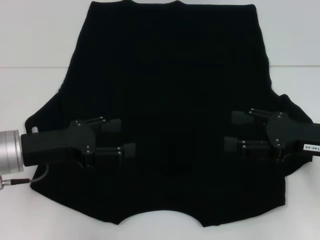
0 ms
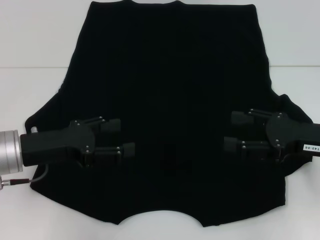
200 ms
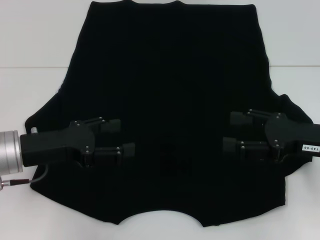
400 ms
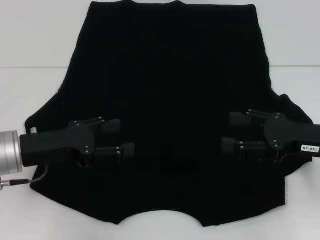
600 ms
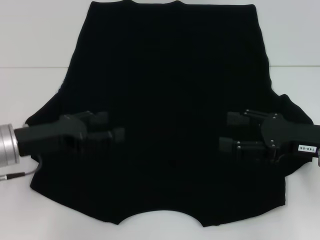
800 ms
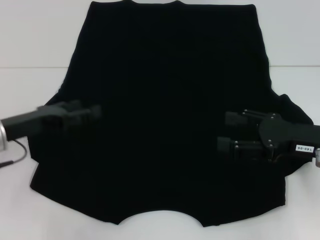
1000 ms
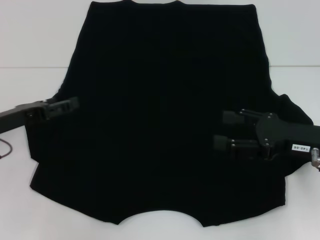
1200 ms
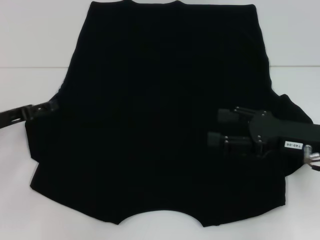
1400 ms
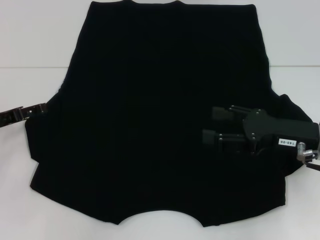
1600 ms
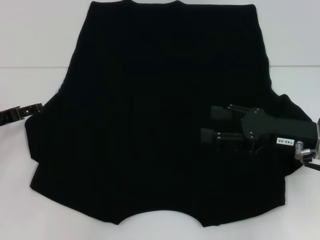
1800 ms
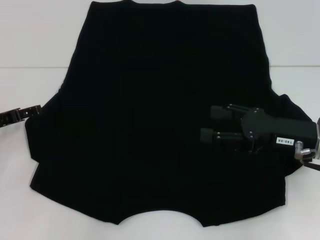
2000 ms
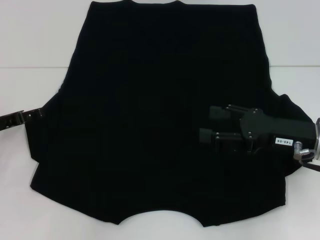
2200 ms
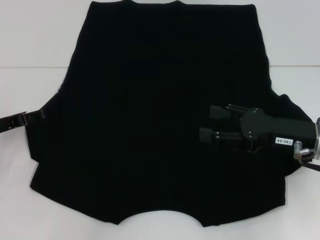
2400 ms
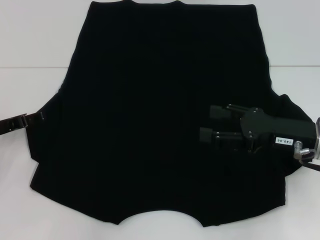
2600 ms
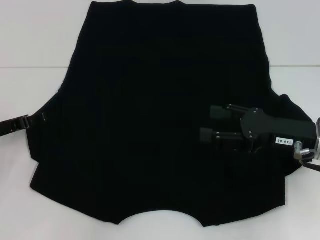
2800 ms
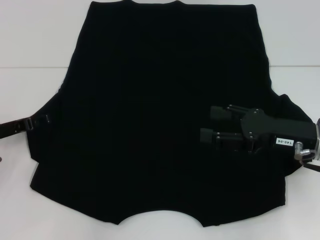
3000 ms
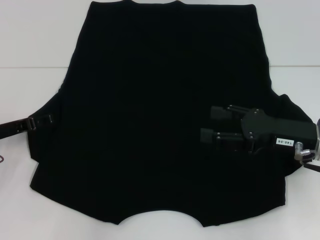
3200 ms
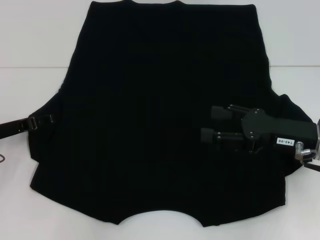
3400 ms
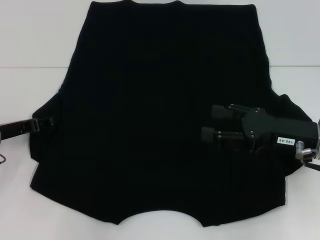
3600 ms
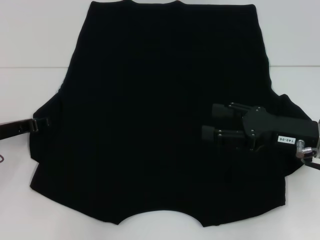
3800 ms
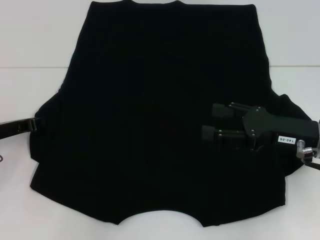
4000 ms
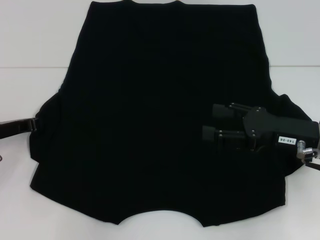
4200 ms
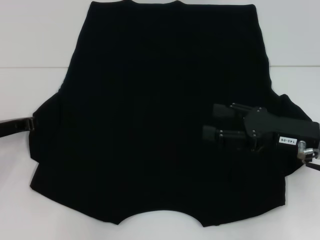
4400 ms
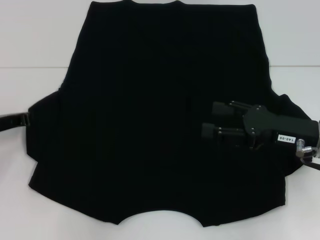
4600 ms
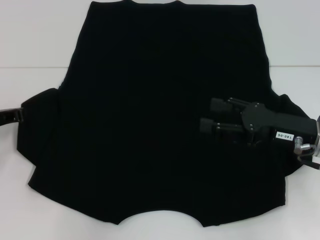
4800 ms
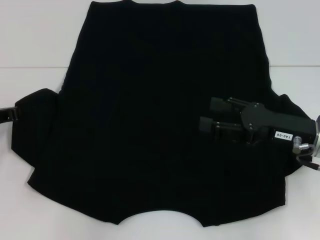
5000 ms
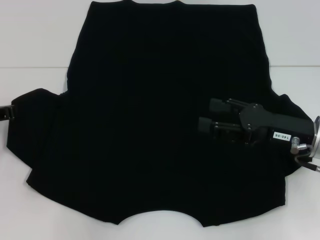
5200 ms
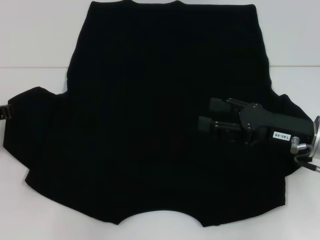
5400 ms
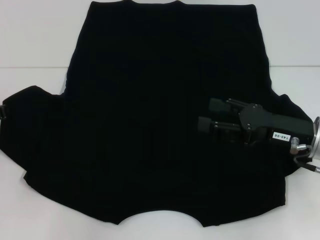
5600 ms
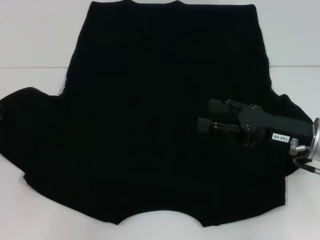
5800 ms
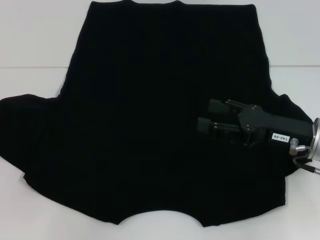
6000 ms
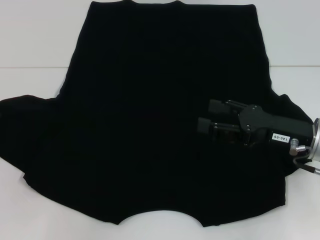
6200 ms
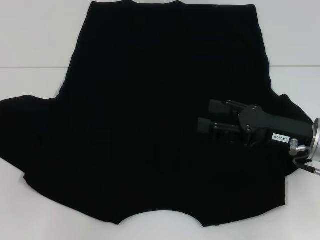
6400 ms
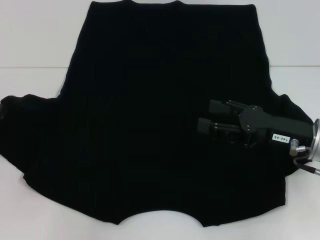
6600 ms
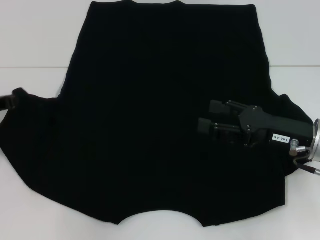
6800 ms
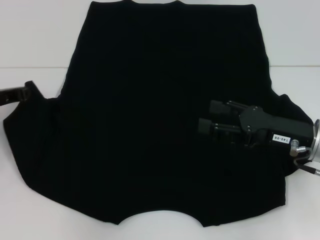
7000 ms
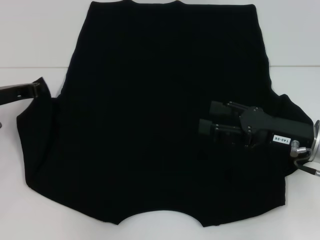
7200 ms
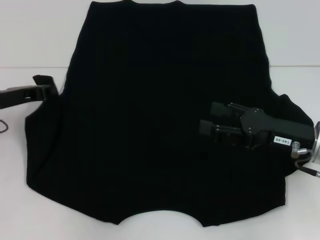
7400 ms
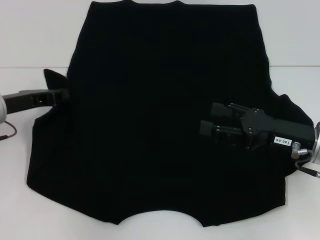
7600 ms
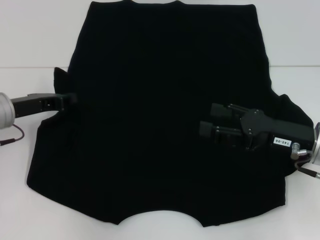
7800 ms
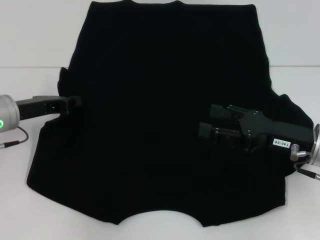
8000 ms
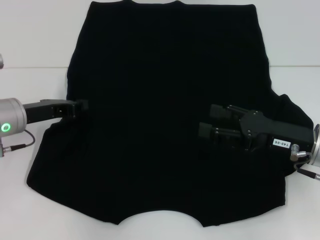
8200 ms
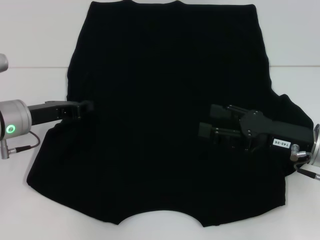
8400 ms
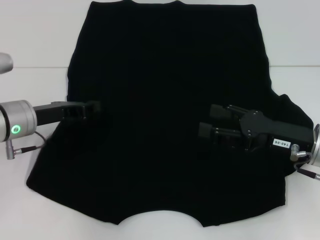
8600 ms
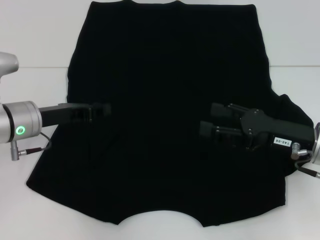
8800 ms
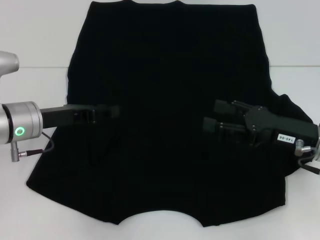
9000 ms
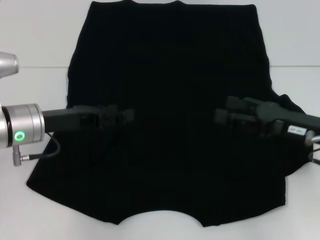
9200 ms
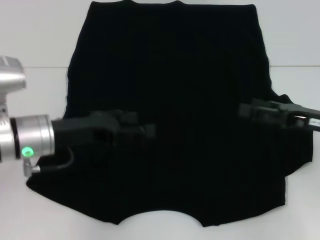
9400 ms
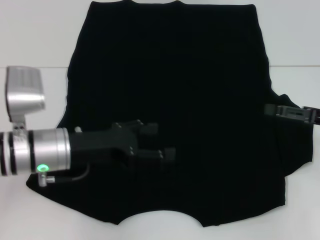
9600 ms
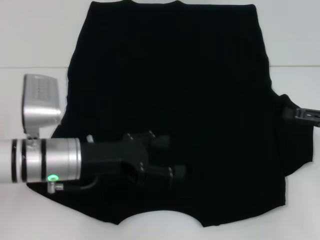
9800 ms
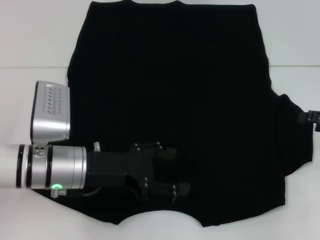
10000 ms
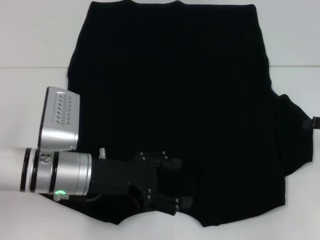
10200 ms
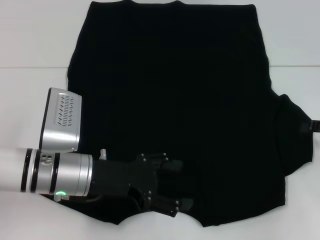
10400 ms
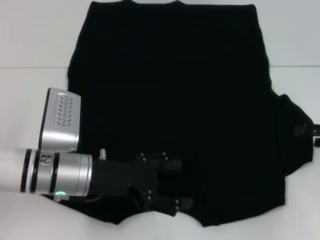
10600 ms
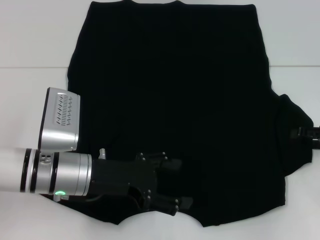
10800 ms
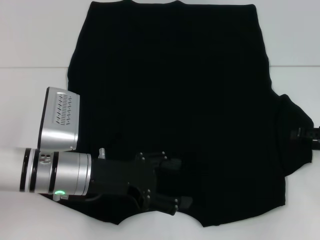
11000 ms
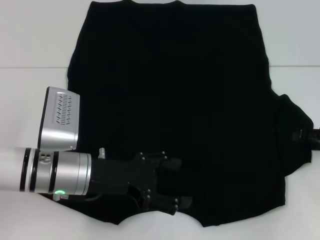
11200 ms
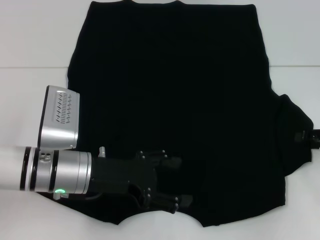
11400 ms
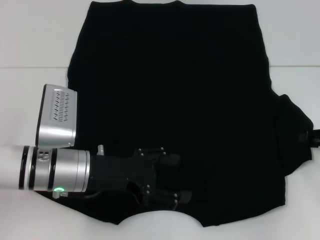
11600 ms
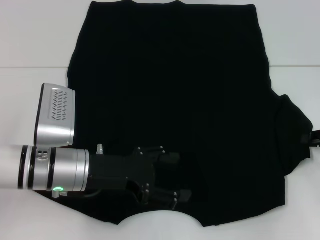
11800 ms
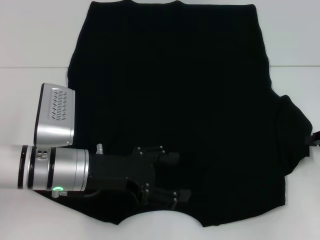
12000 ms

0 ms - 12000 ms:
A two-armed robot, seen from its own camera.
Step, 0 ms - 9400 ms: Fold the bottom left sleeve with your left hand.
0 ms - 1600 ms: The left gripper moves to the left, about 10 cm.
1600 ms - 3000 ms: The grippers move only a little.
4400 ms - 6000 ms: There are only small adjustments of the grippers.
6000 ms - 7600 ms: The left gripper goes approximately 5 cm to the right.
7600 ms - 9000 ms: The left gripper moves to the right, some 5 cm.
9000 ms - 10400 ms: The left gripper shifts some 10 cm to the right and backward, and opens. The right gripper moves to the right, roughly 15 cm.
10400 ms - 12000 ms: The right gripper closes up.

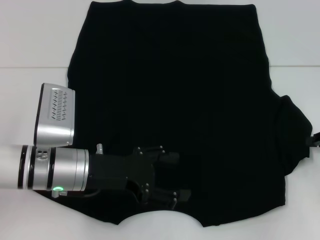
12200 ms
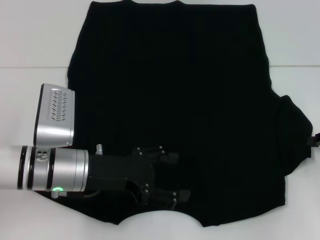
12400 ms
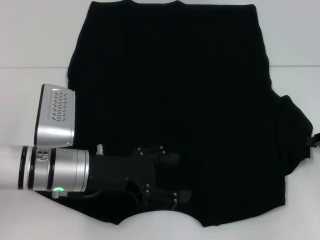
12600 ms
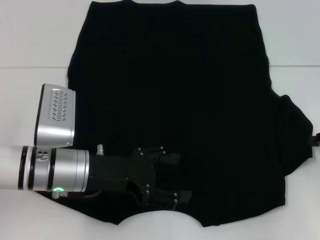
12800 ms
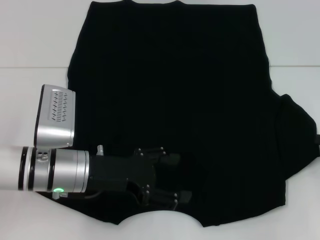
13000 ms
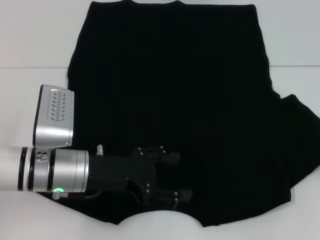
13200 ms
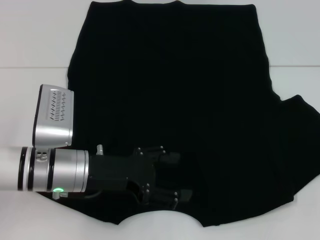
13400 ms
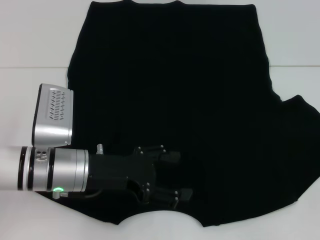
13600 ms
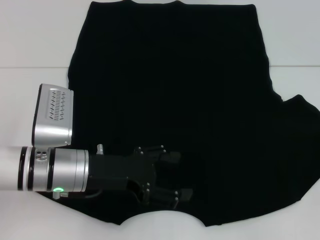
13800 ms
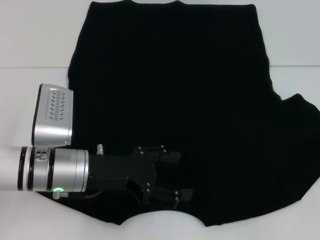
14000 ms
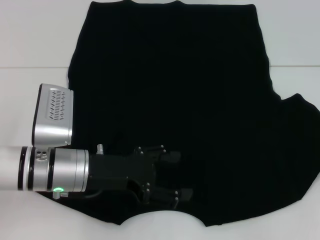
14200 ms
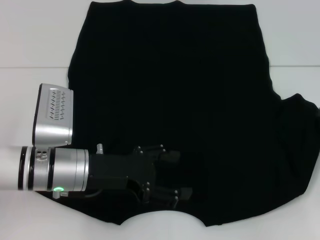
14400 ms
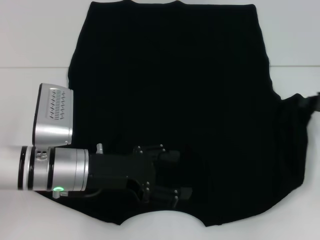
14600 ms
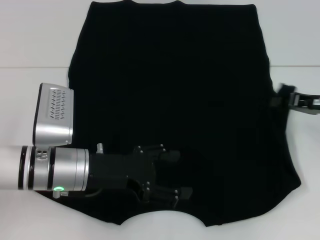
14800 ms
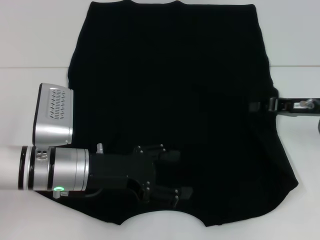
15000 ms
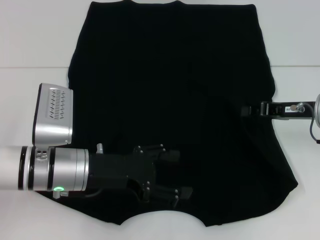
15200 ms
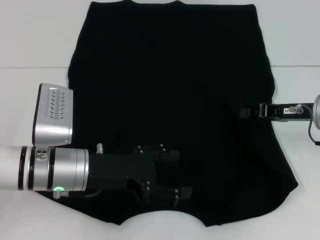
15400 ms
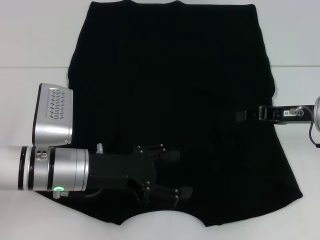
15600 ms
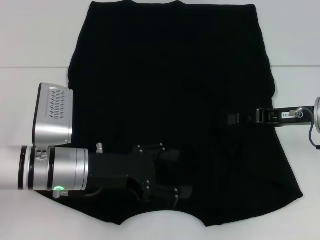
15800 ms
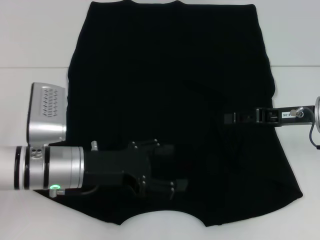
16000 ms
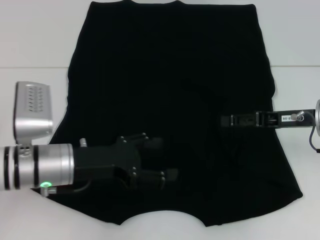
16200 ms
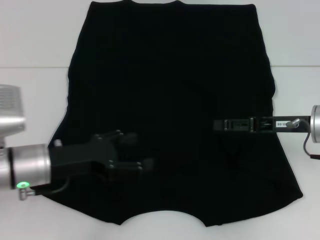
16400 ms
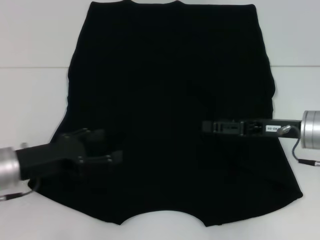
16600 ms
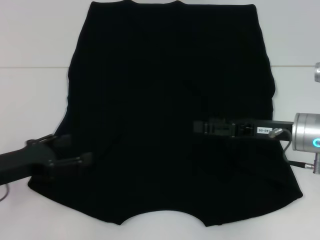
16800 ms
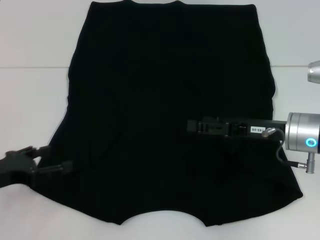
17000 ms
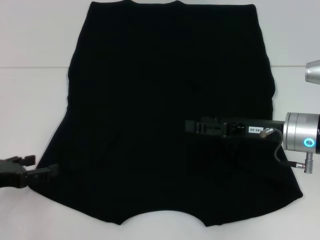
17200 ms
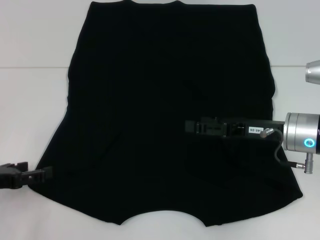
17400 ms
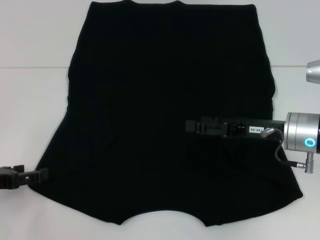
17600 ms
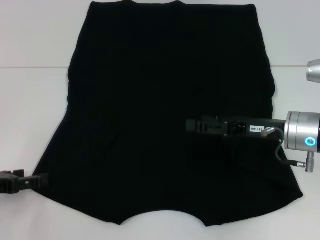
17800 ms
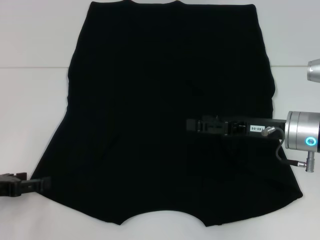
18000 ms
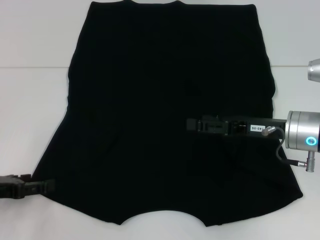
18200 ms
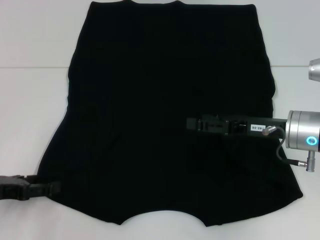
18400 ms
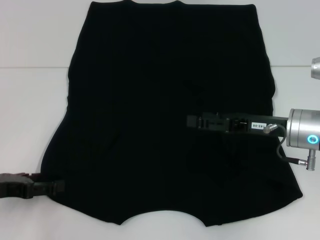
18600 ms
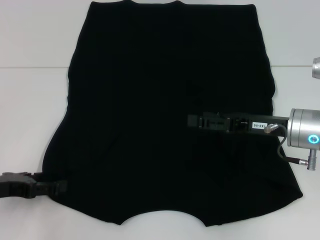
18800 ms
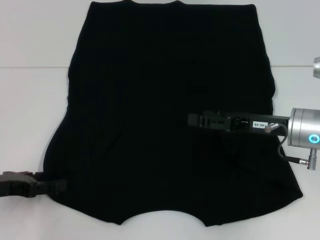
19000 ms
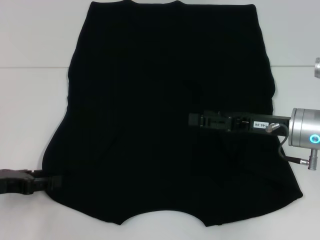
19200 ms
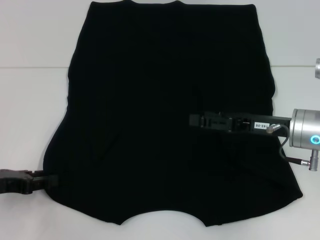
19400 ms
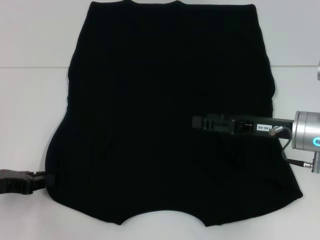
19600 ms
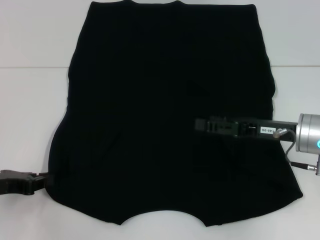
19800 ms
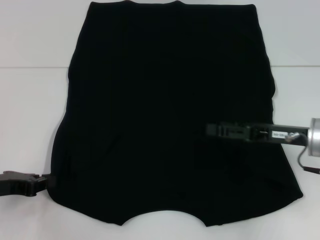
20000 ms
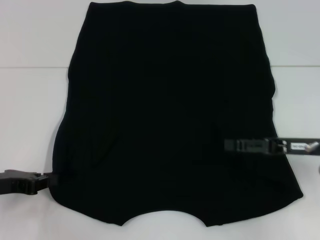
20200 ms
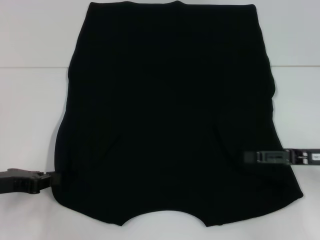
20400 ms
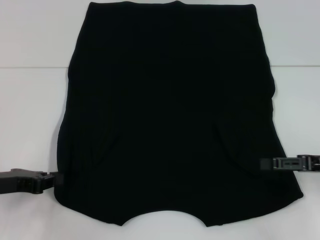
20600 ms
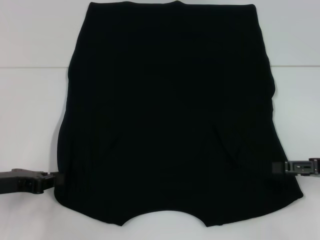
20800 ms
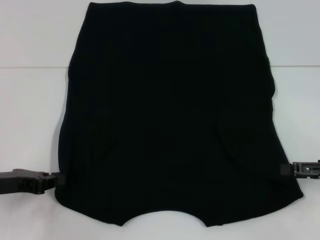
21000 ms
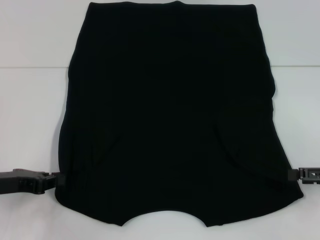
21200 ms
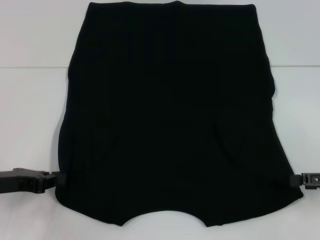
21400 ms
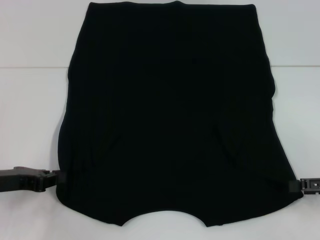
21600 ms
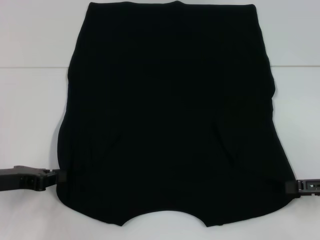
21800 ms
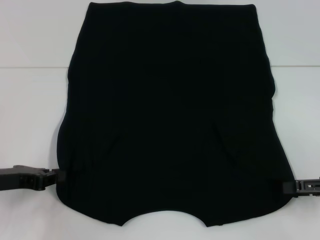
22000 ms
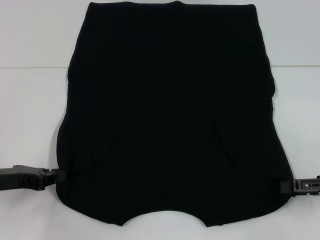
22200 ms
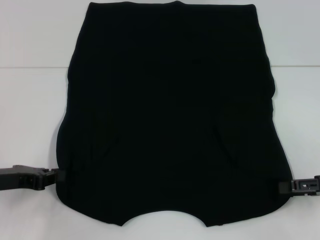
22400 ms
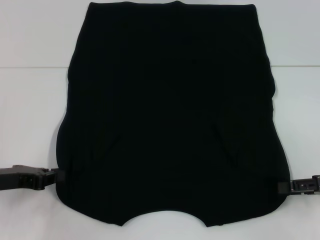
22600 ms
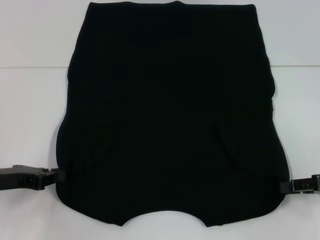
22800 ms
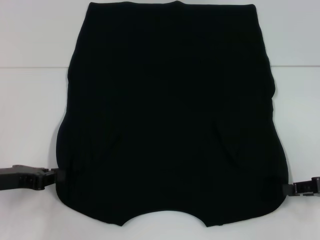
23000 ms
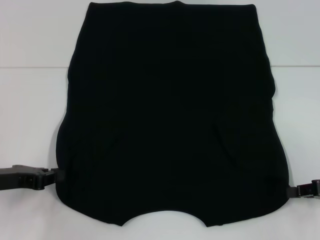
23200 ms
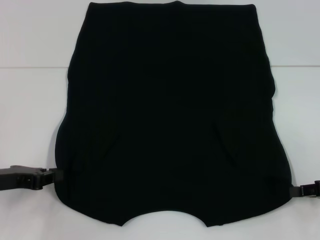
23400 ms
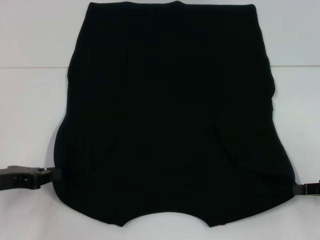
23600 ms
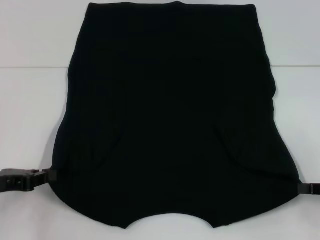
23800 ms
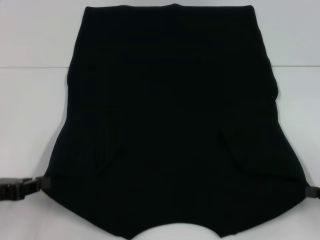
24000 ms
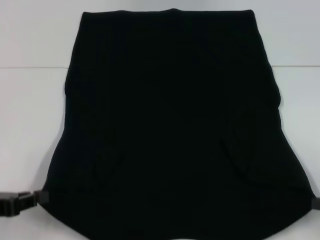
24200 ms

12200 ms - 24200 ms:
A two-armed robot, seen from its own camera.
Step, 12200 ms - 16400 ms: Fold the bottom right sleeve with your right hand.
Step, 16600 ms - 19600 ms: Grab the bottom left corner with your left hand.
Step, 19800 ms - 23600 ms: Grab the bottom right corner with your right hand.
12200 ms - 13800 ms: The right gripper moves some 5 cm.
13800 ms - 15200 ms: The right gripper is displaced to the left and forward by approximately 15 cm.
15200 ms - 16600 ms: The left gripper travels to the left by about 10 cm, while the right gripper opens up.
16600 ms - 18200 ms: The left gripper shifts some 10 cm to the left.
18200 ms - 19800 ms: The left gripper closes up.
19800 ms - 21200 ms: The right gripper is displaced to the right by about 15 cm; the left gripper closes its fingers.
21200 ms - 22600 ms: The grippers make only small movements.
22600 ms - 24200 ms: The two grippers go roughly 5 cm backward. The right gripper closes.
